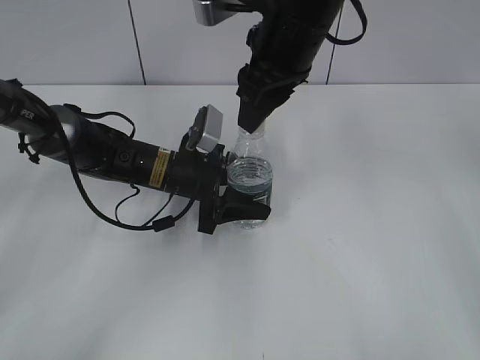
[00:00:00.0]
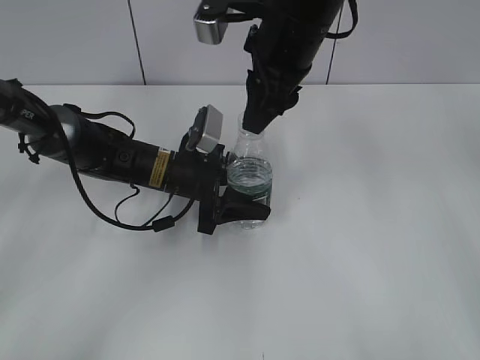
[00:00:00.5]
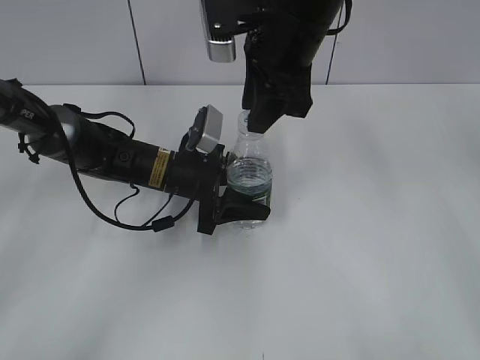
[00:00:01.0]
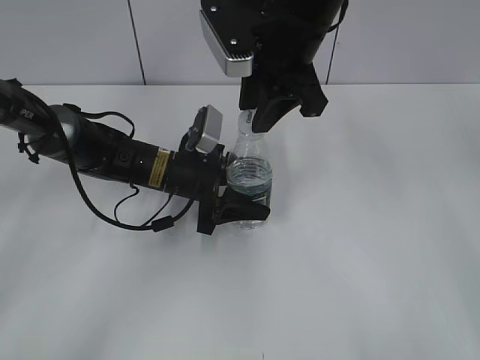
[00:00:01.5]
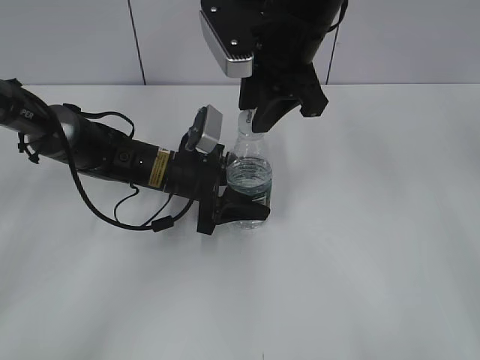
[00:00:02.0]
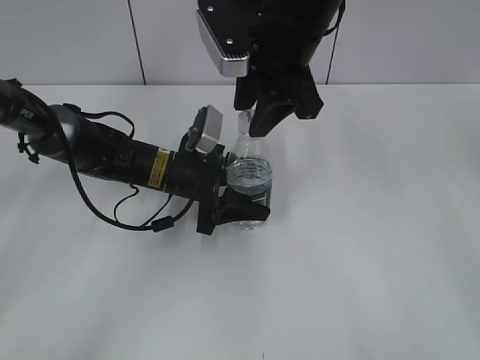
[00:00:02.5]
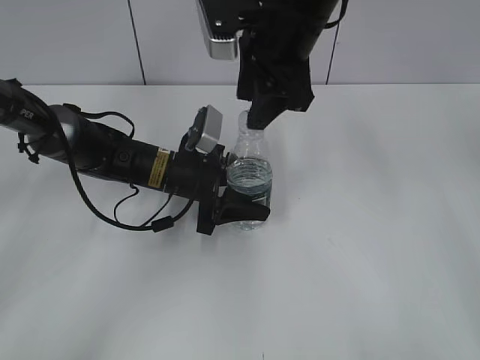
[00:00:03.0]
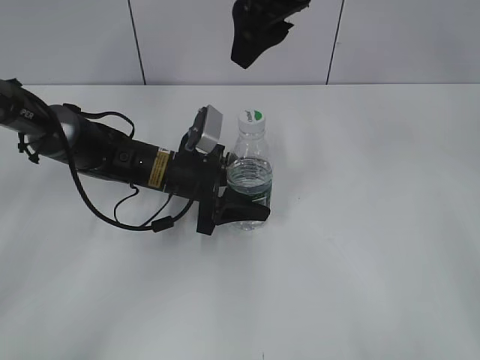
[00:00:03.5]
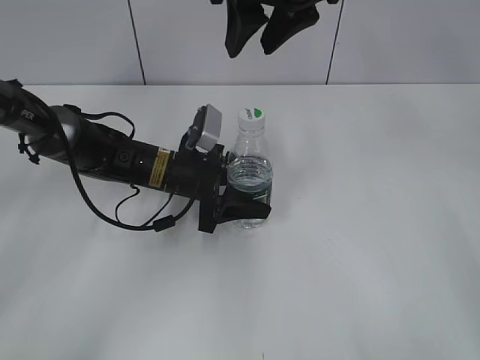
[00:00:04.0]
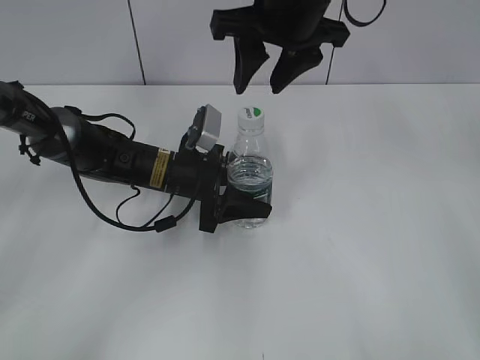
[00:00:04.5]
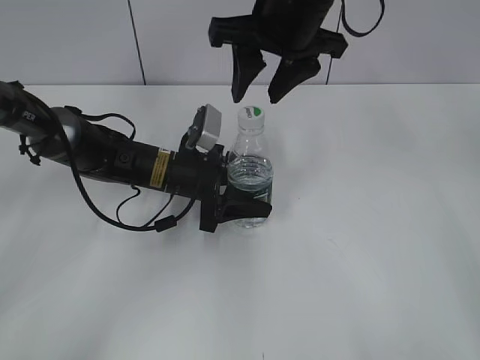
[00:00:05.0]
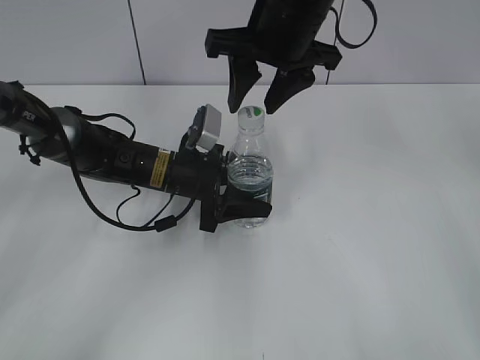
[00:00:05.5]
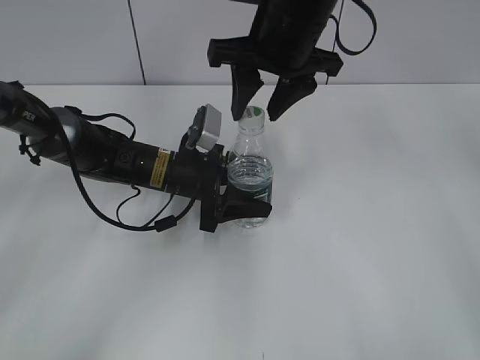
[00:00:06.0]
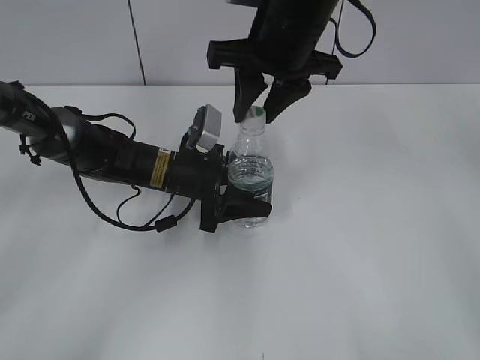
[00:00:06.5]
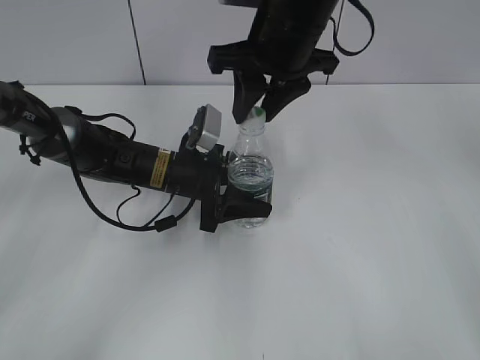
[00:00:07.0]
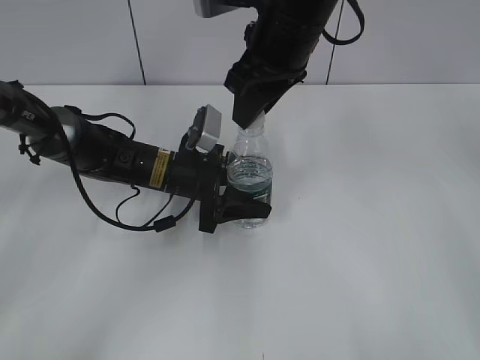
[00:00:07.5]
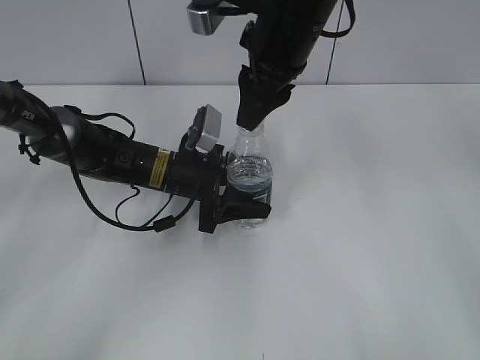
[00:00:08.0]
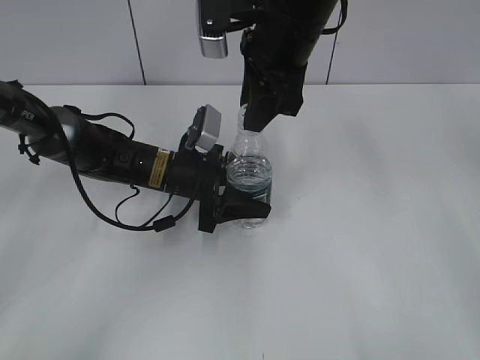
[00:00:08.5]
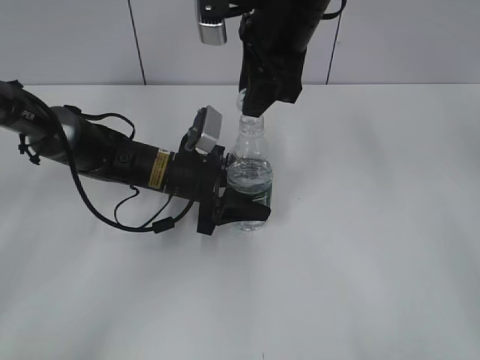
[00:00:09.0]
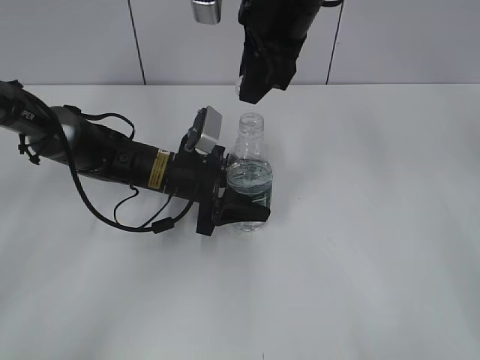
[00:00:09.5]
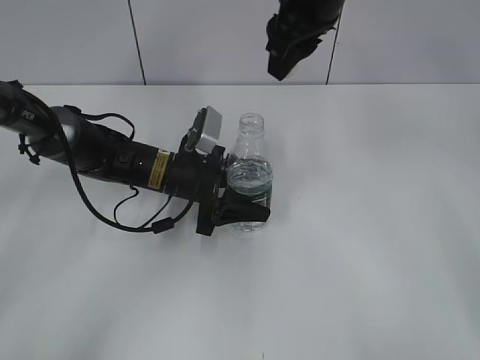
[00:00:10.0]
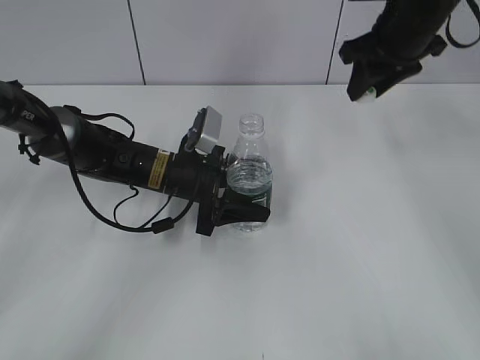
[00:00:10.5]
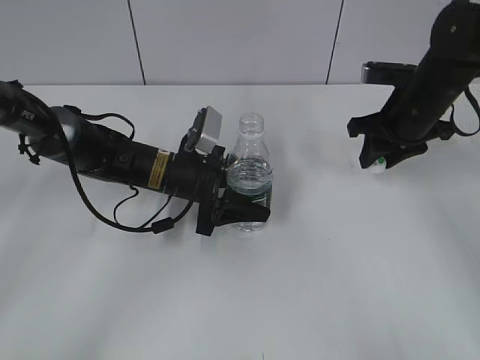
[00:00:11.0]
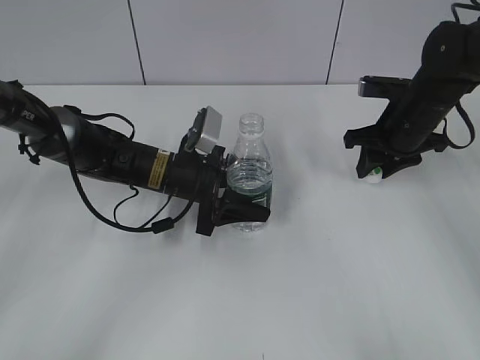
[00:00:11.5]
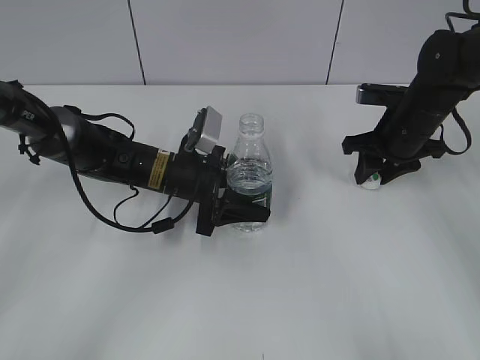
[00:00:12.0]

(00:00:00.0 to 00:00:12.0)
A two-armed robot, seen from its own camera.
Step, 00:00:00.0 - 00:00:09.0: Unscrew the bottle cap with the right gripper while holding the bottle with the left gripper.
00:00:02.0 - 00:00:04.0: The right gripper is displaced upward by roughly 5 cm, and opens up.
00:00:04.0 - 00:00:06.0: The right gripper travels downward by some 5 cm.
00:00:06.0 - 00:00:08.0: The right gripper closes its fingers.
00:00:08.0 - 00:00:10.0: The right gripper changes place by some 5 cm.
00:00:10.0 - 00:00:12.0: The right gripper travels downward and to the right by about 25 cm.

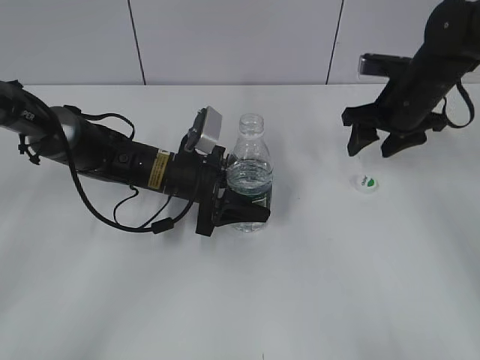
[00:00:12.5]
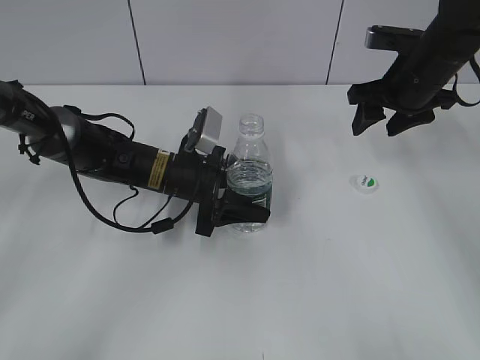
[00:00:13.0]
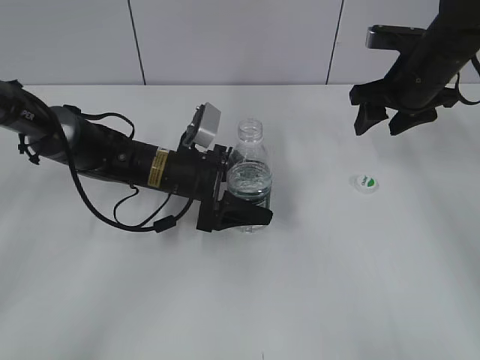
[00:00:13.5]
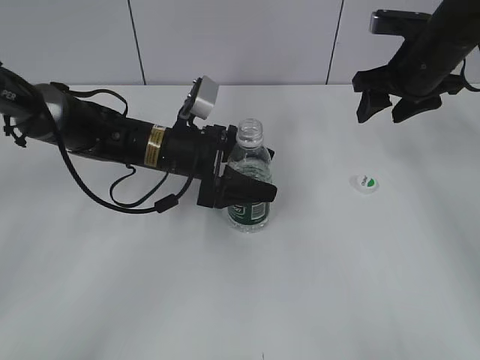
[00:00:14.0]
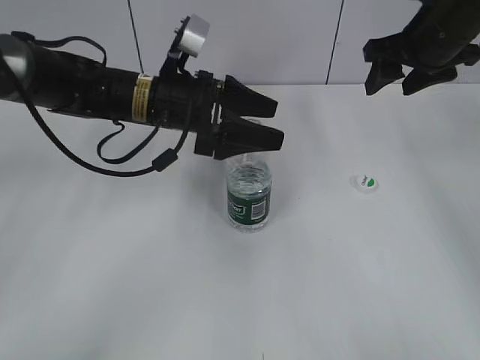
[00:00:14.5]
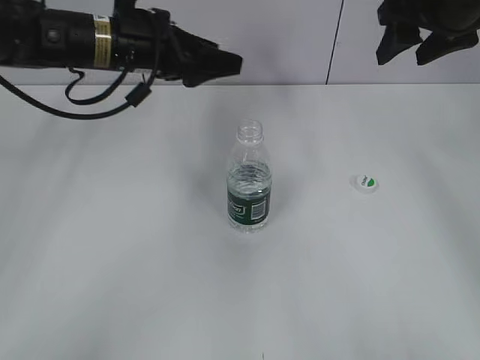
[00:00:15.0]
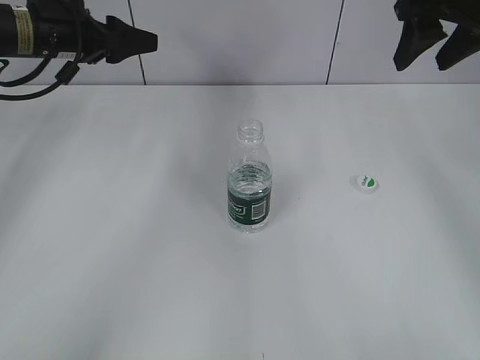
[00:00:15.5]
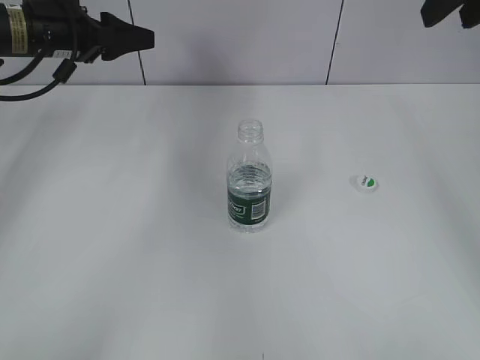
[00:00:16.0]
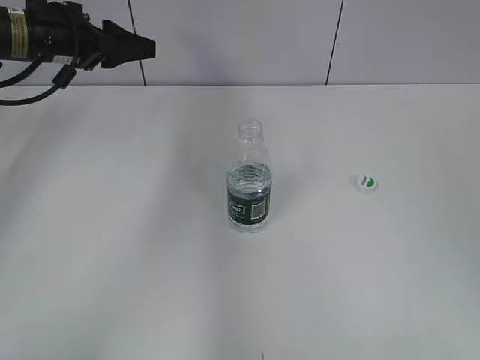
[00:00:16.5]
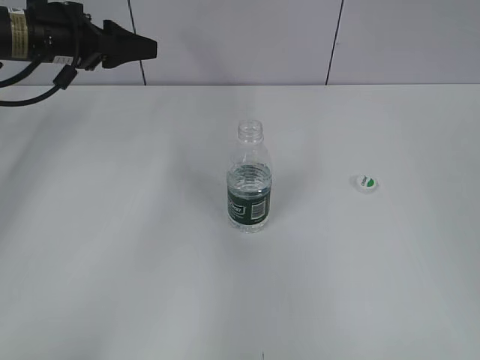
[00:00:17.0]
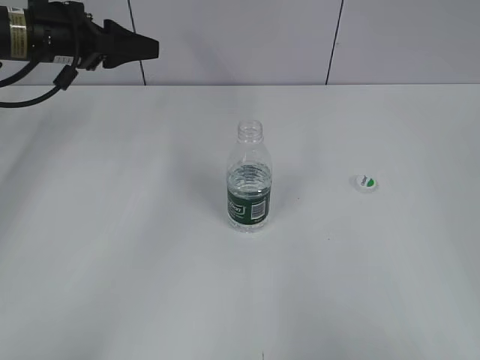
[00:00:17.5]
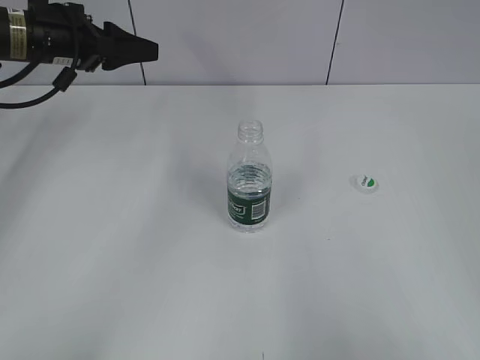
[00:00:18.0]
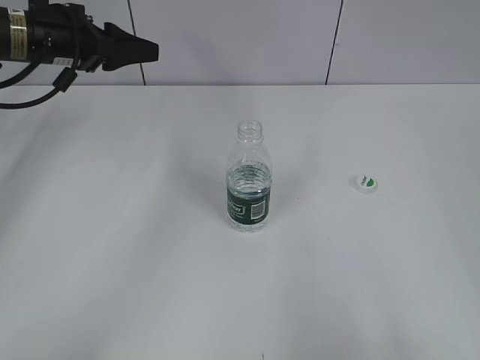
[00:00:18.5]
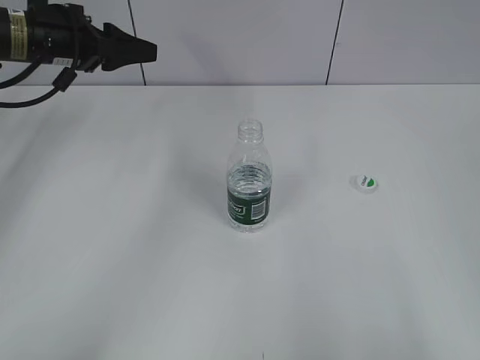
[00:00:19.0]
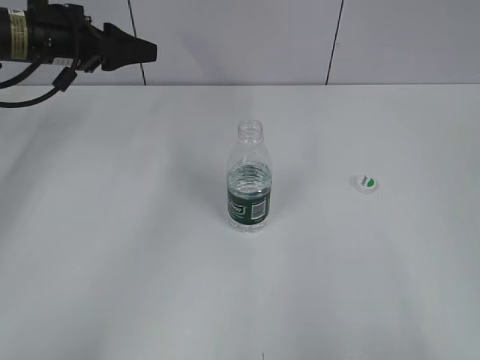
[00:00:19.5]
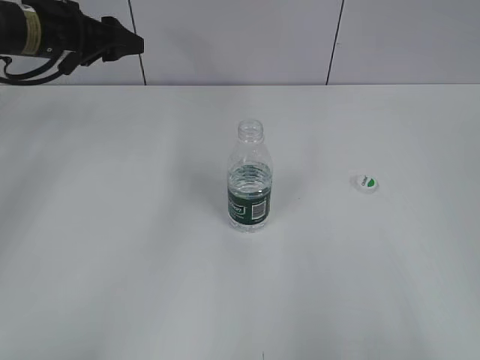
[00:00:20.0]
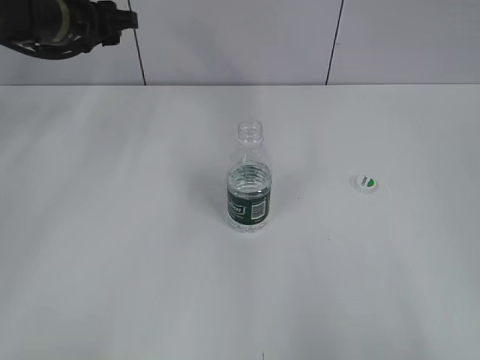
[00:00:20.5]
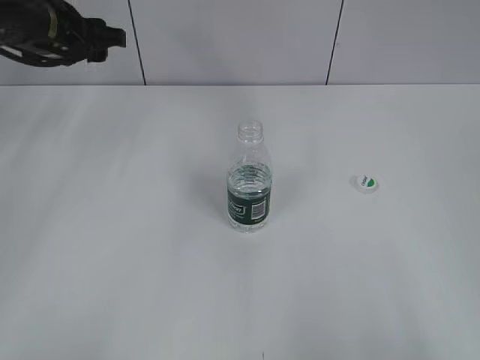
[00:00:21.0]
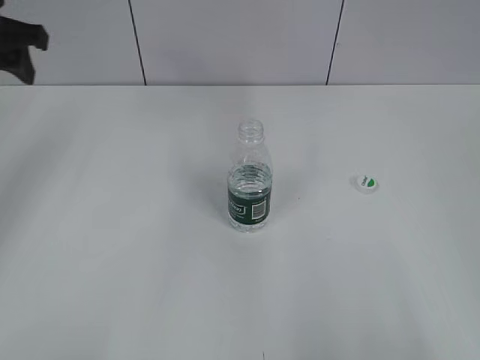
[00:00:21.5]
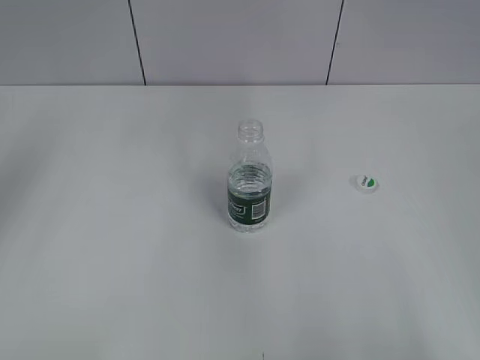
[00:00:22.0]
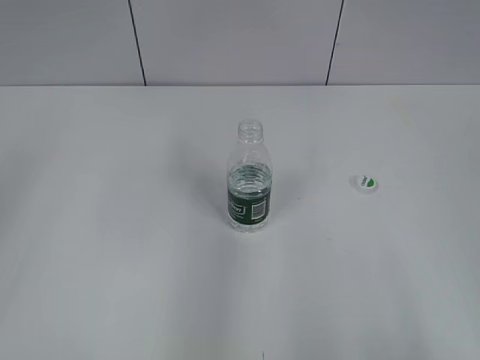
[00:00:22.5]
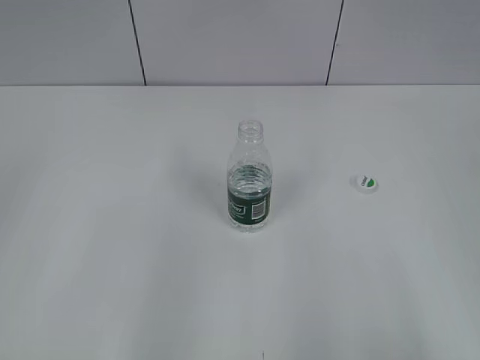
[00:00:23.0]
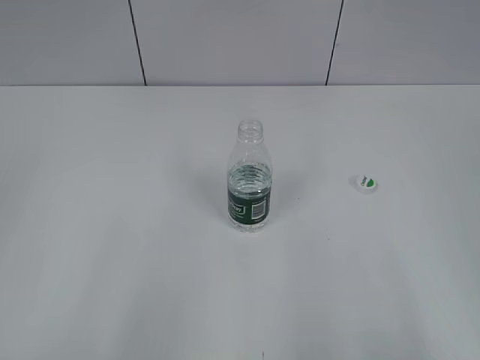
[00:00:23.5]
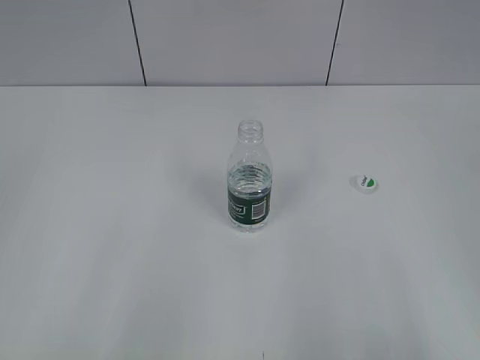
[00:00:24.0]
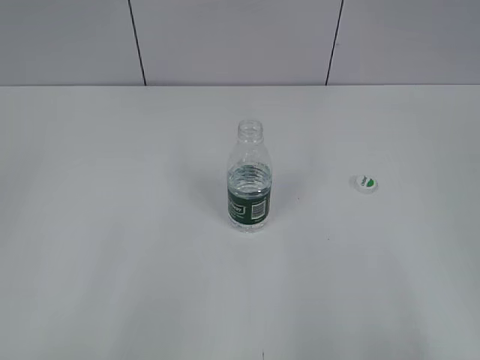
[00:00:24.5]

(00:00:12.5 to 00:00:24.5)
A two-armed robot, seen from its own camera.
Step, 00:00:12.5 - 00:00:14.0: Place the bottle on the table with the left gripper.
00:00:12.5 - 00:00:14.5: Both grippers travel together upward, some 10 cm. The left gripper opens up.
00:00:14.5 - 00:00:16.5: The left gripper travels to the left by some 15 cm, and closes up. Meanwhile the right gripper heads backward and upward, covering roughly 25 cm, and closes its fingers.
00:00:16.5 - 00:00:18.5: The right gripper moves backward and downward, some 25 cm.
00:00:20.5 - 00:00:22.5: The left gripper shifts some 30 cm backward.

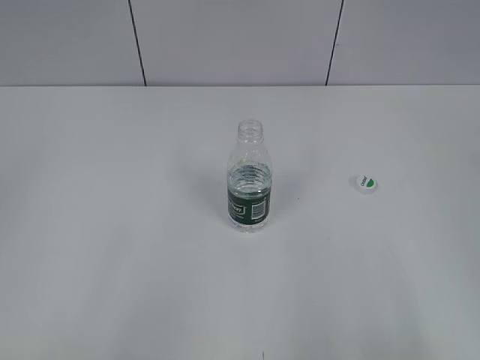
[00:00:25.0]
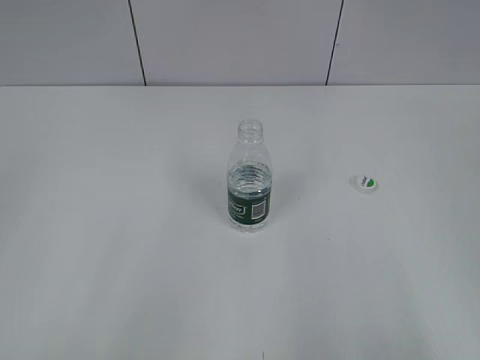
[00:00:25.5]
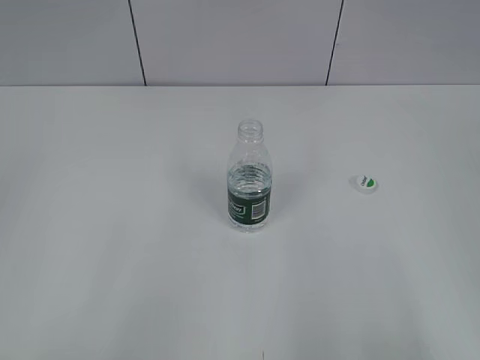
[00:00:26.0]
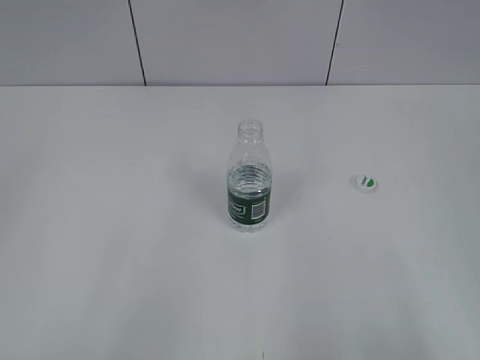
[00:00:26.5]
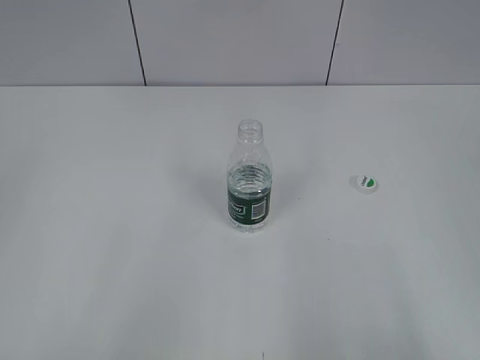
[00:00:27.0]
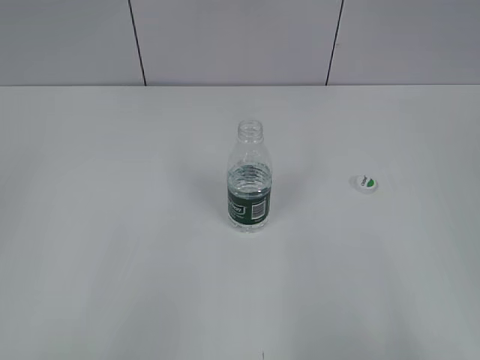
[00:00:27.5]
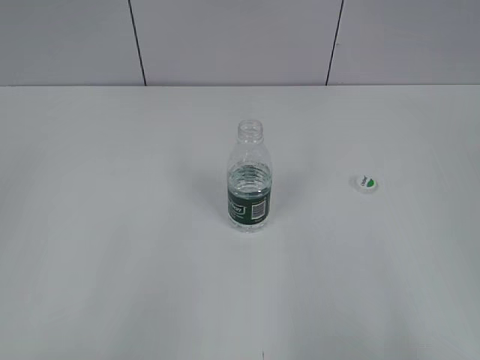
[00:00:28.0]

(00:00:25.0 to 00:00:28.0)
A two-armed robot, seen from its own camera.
00:00:25.0 - 00:00:26.5: Both grippers stay put.
